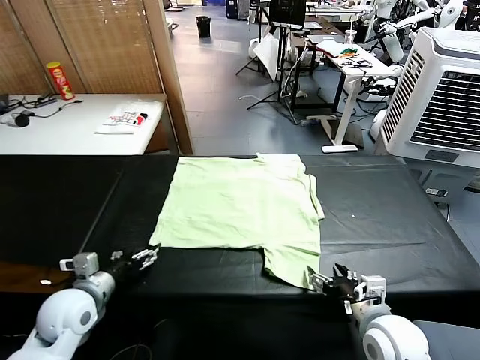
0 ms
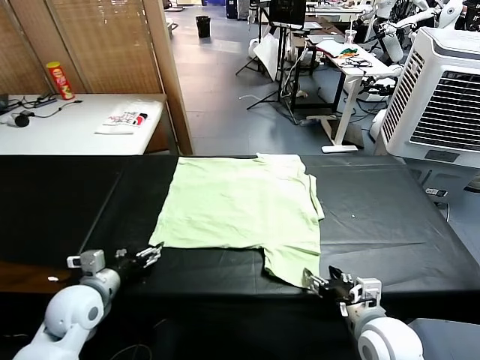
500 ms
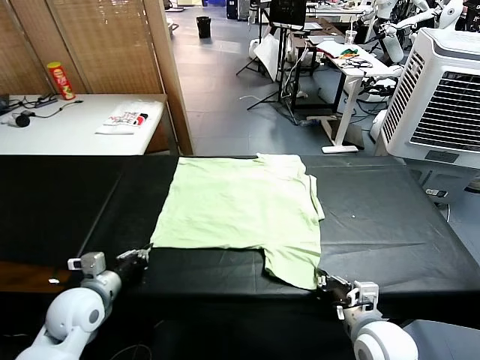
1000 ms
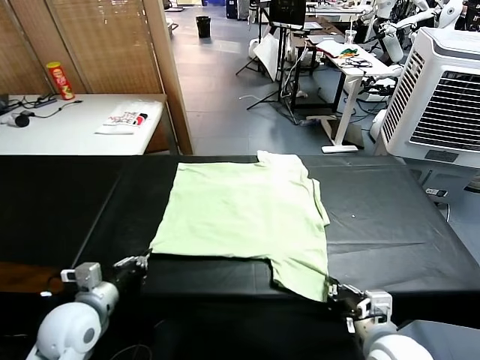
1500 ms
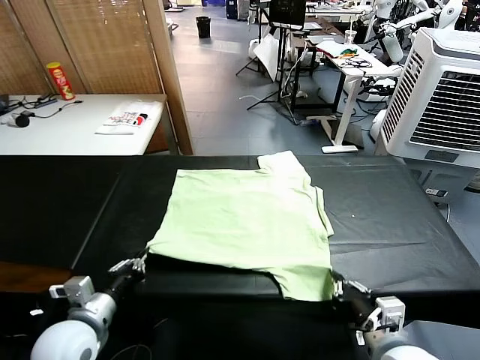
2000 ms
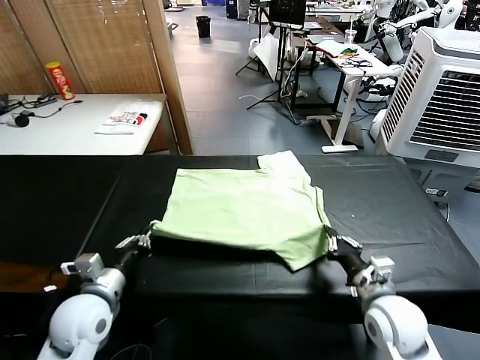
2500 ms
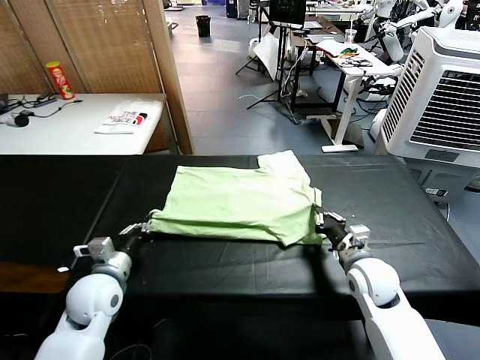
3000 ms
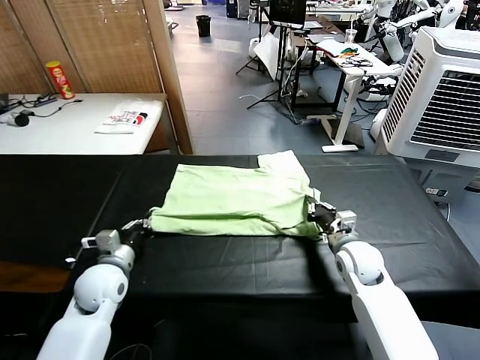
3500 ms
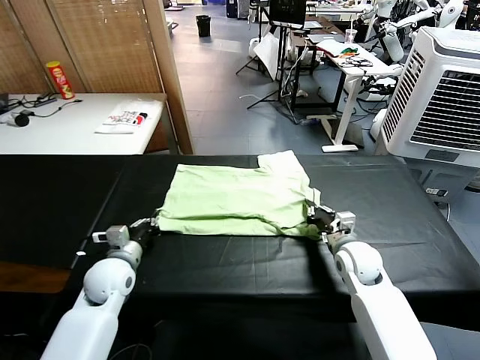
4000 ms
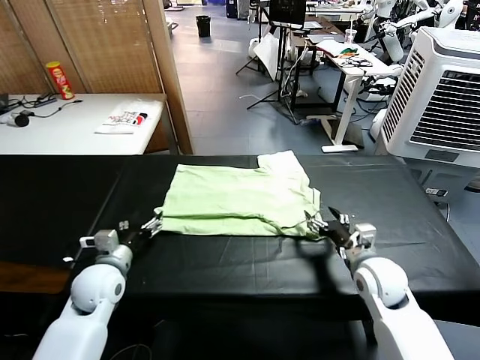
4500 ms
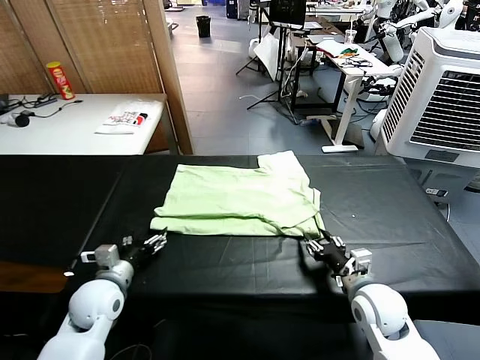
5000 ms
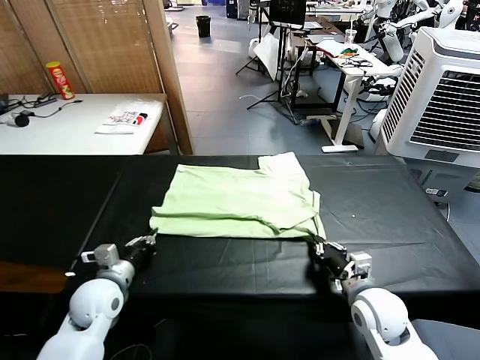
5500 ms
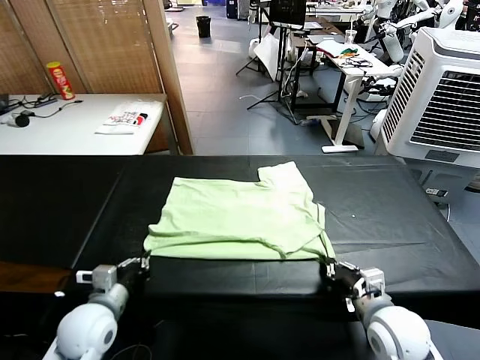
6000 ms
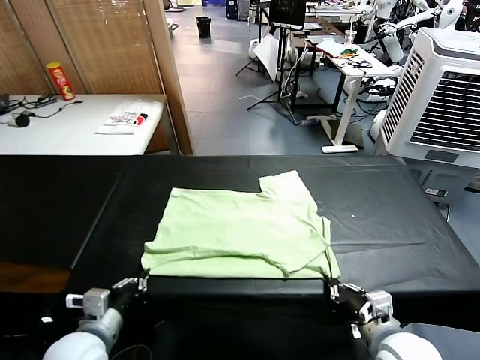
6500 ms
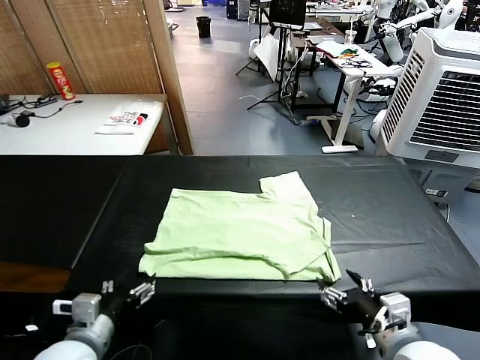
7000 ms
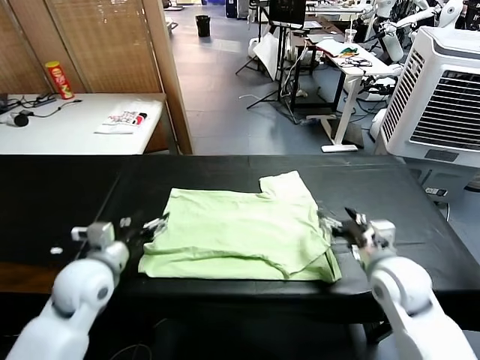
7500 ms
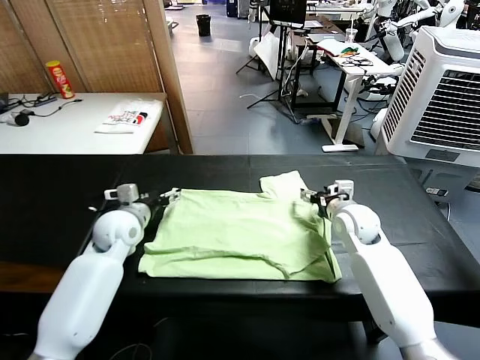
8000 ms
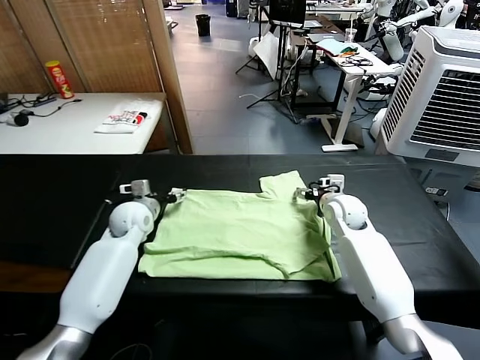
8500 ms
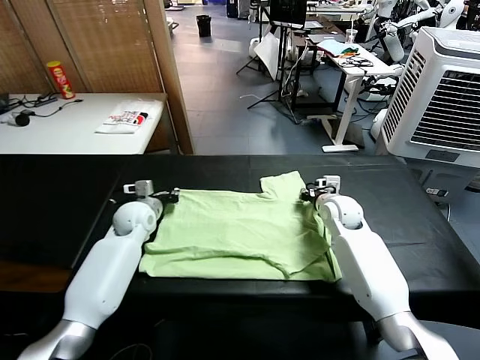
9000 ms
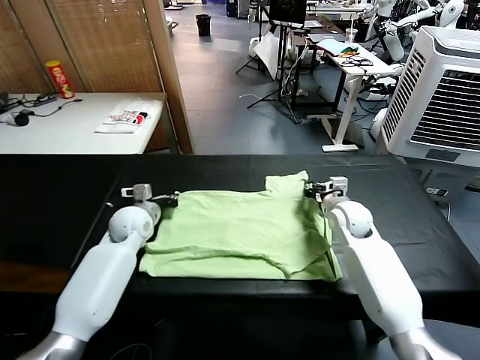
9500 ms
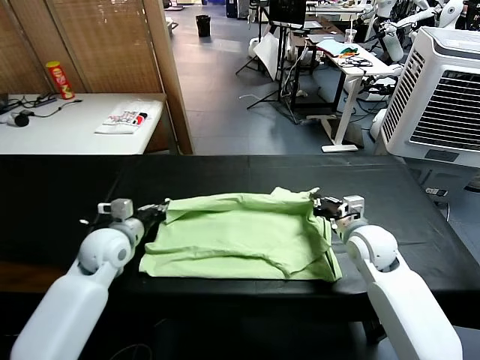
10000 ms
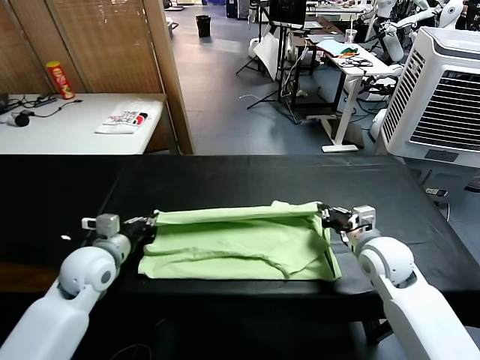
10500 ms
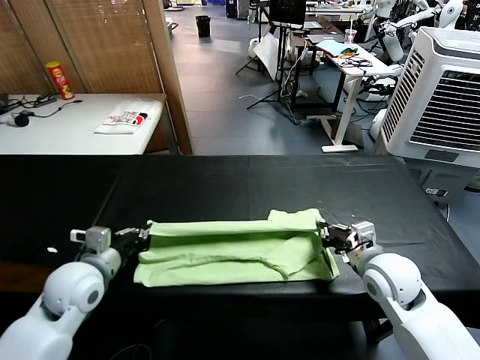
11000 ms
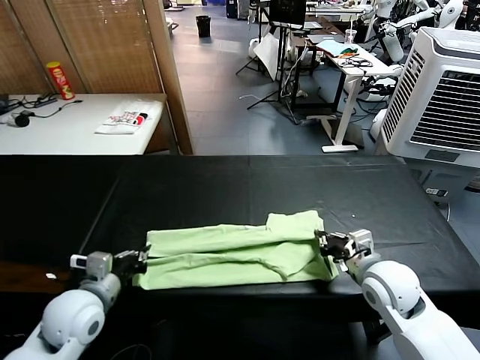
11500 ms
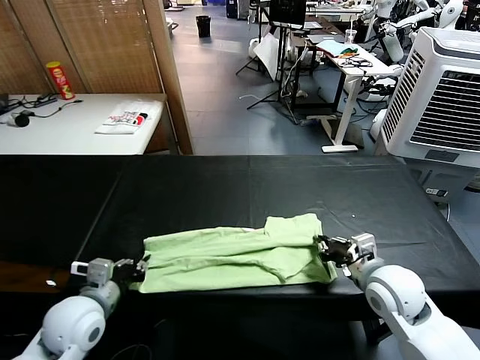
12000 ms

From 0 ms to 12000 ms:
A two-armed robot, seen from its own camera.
Task of the whole recording: fold and organize the clothes.
Step, from 0 ms to 1000 ms: use both grippers simultaneously to clamp the lower edge of the clothing fabric.
Step, from 1500 ms to 4000 ms: use both grippers to drag the lower edge of the fabric forward and fold it over the upper edge.
Step, from 4500 ms to 7000 ms: Drag the clothes downward with both gripper.
Step, from 7500 ms to 9000 ms: use both grippers simultaneously to clamp the upper edge of the clothing fabric.
From 2000 ms to 4000 ms: Both grippers travel together forward, roughly 15 cm. The right gripper opens up.
From 4000 ms to 6000 ms: The left gripper is displaced backward by approximately 10 cm, and opens and closes again, while the right gripper moves backward, about 15 cm, and closes its fingers.
From 6000 ms to 8000 ms: Both grippers travel together forward, roughly 25 cm. The right gripper opens, while the left gripper opens.
From 8000 ms to 10000 ms: The left gripper moves backward, some 5 cm, and closes up. Meanwhile the right gripper travels backward by approximately 10 cm, and closes up.
From 10000 ms to 12000 ms: The grippers both shift backward by roughly 10 cm. The right gripper opens. The left gripper opens up.

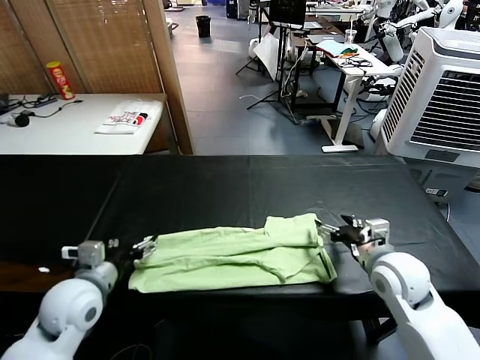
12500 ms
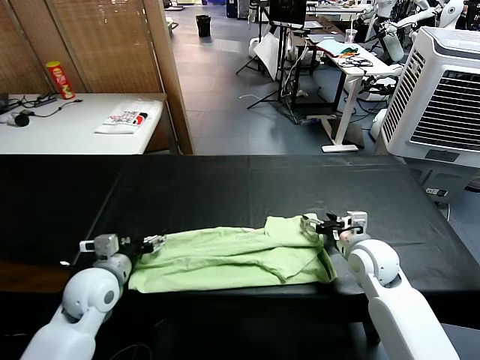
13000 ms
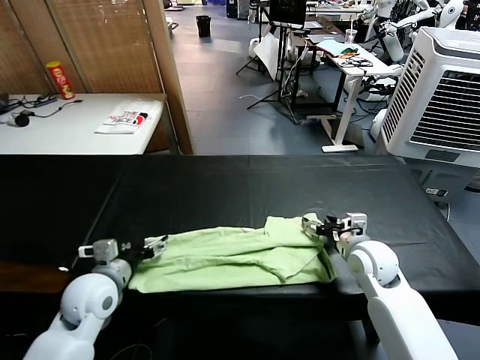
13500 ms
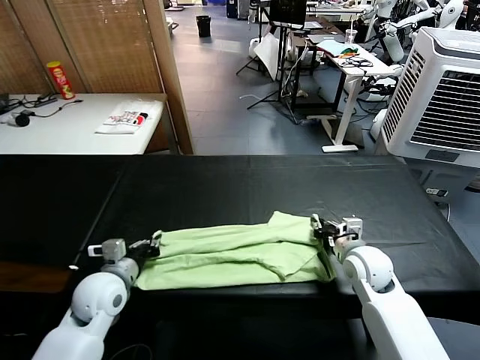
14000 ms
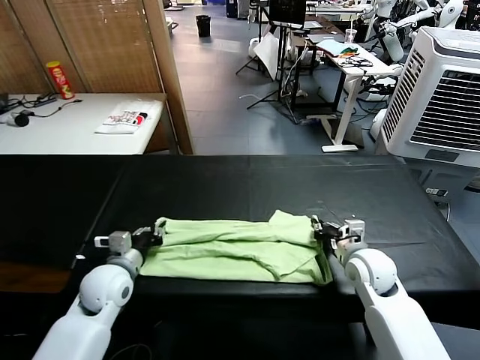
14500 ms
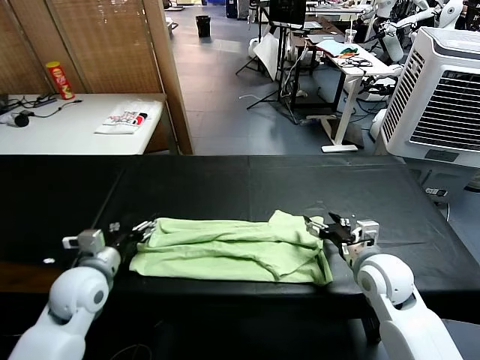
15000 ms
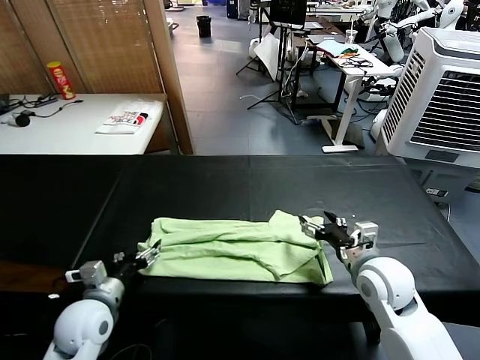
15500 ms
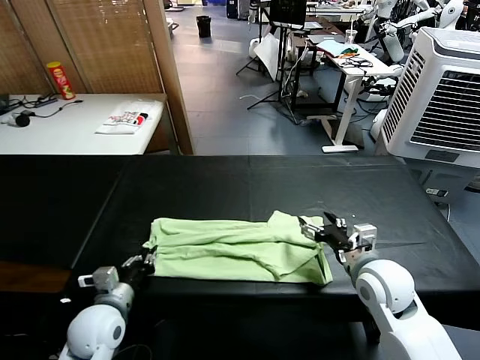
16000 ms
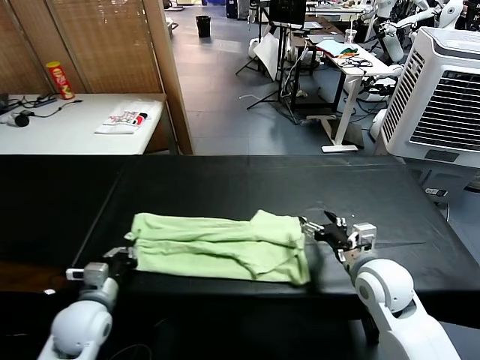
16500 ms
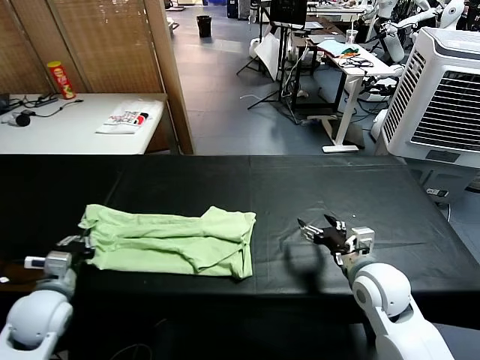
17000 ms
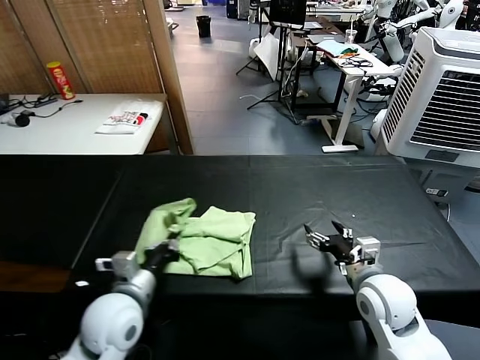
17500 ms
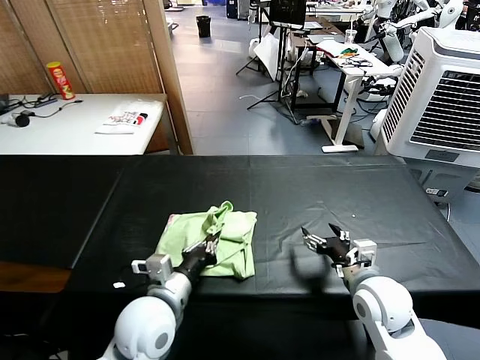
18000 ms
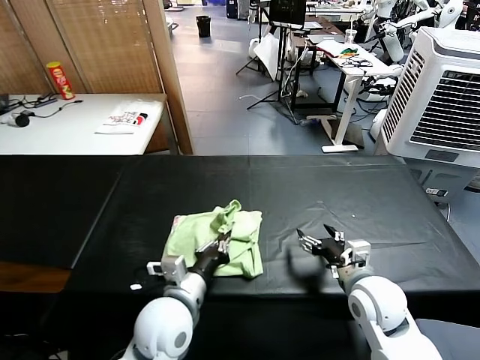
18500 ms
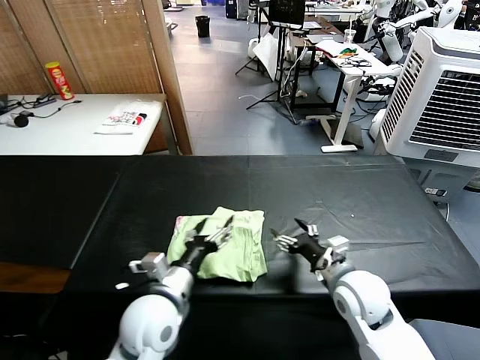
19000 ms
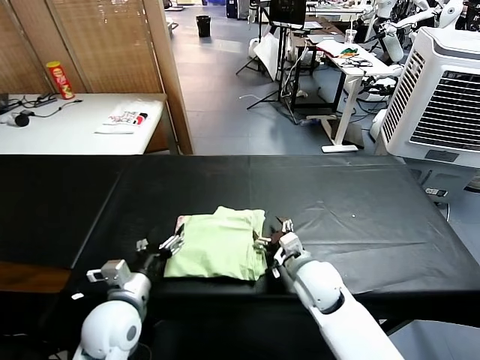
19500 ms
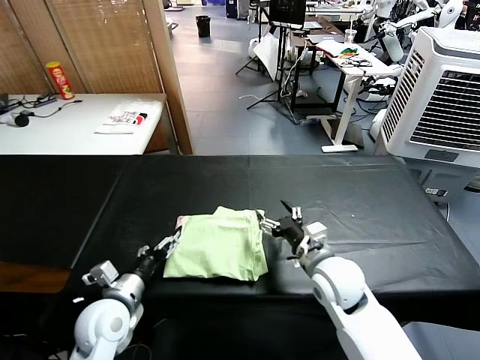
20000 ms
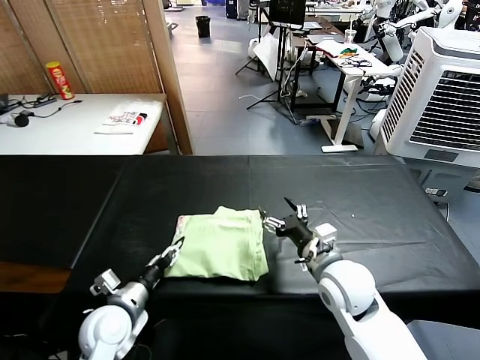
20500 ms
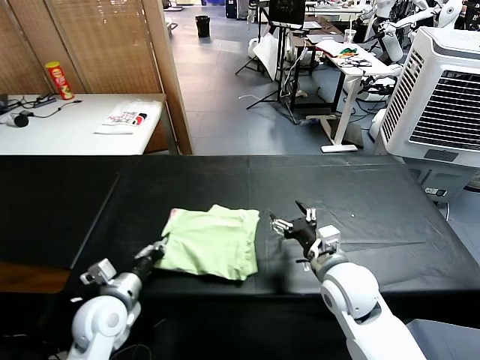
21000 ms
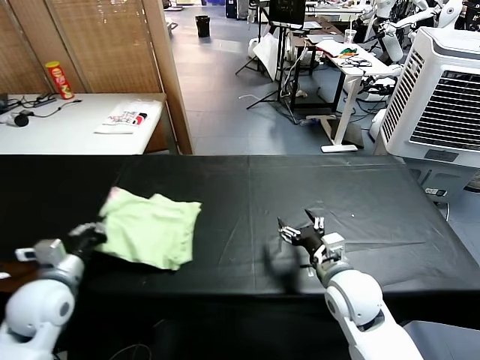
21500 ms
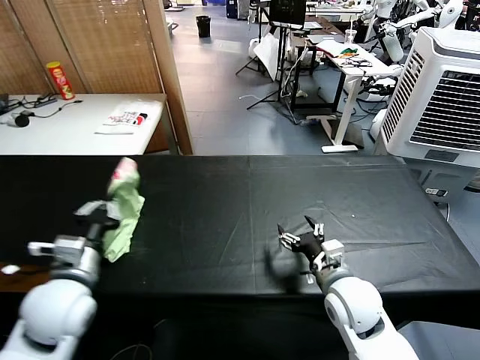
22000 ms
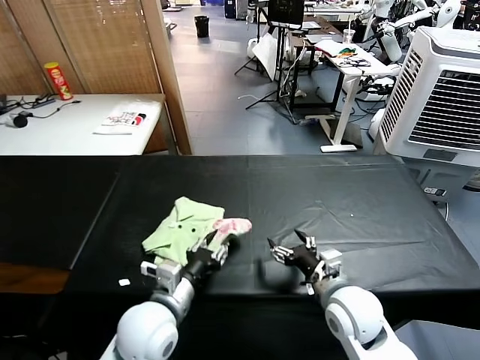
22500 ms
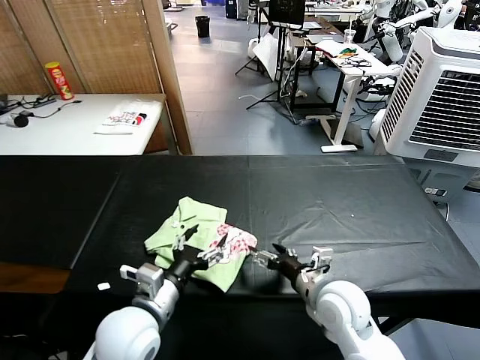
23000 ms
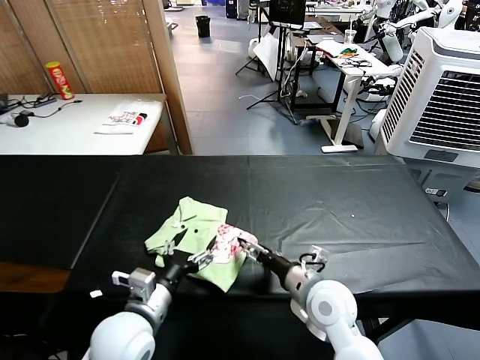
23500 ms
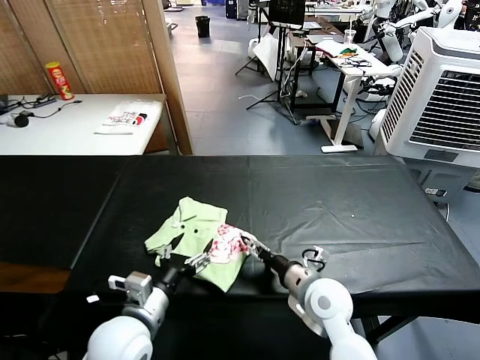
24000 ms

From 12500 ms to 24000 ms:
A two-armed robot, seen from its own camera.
Task of the whole recording: fold and organize the clothes.
Step, from 12500 ms to 16000 ms: use the left gripper to clamp the left edge of the fabric.
Step, from 16500 ms to 18500 ms: use the left gripper to drag the left edge of the fabric to the left and folds it over the right edge.
Step, from 19000 ms to 22500 ms: Flip the folded clothes over with left gripper.
From 12500 ms to 14500 ms: The left gripper is displaced downward by some 5 cm, and closes up. The right gripper closes its fingers.
From 14500 ms to 16500 ms: The right gripper shifts by roughly 5 cm, and opens its fingers; the left gripper travels backward by roughly 5 cm, and opens, then closes again.
From 16500 ms to 18500 ms: The left gripper goes some 20 cm to the right.
From 18500 ms to 20000 ms: The left gripper shifts about 15 cm to the left, and opens. Meanwhile the right gripper shifts about 5 cm to the left.
From 20000 ms to 22000 ms: The left gripper goes approximately 10 cm upward, and closes its fingers.
From 22000 ms to 24000 ms: The left gripper moves to the right and downward, approximately 10 cm, and opens; the right gripper shifts by approximately 5 cm.

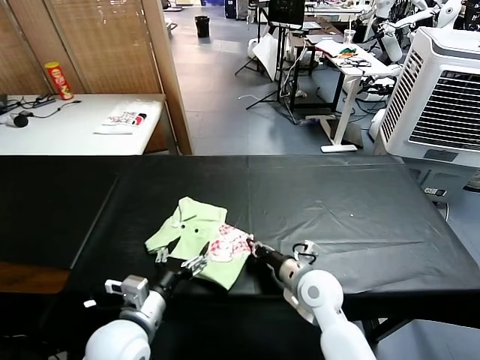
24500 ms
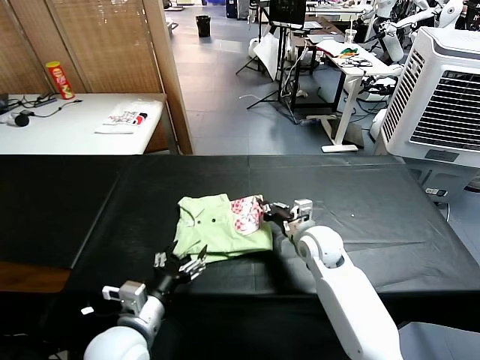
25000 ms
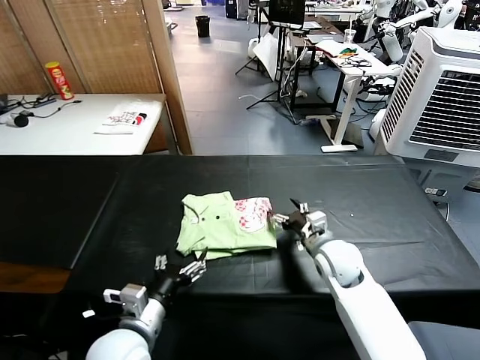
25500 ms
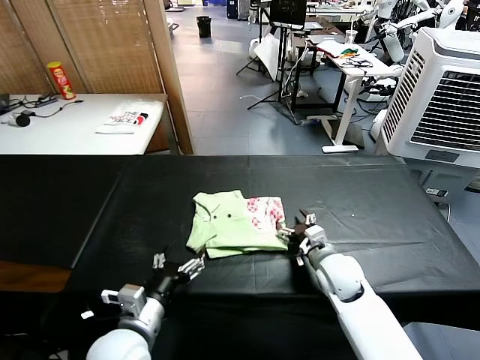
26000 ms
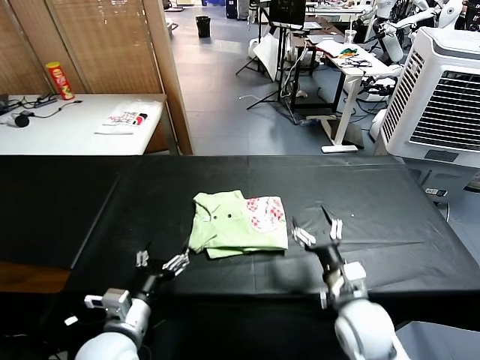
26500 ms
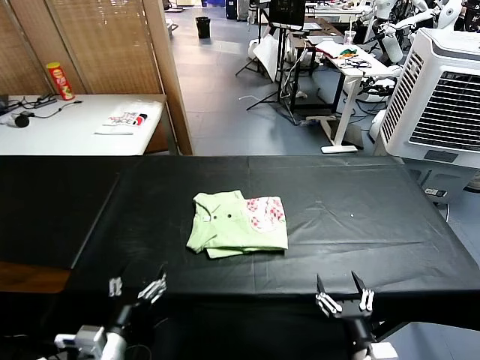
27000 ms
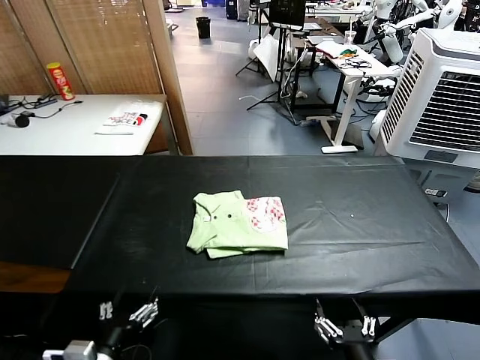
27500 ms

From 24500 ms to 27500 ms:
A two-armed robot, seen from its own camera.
Task of the whole recording: fold and organize the clothes.
From 24500 ms to 26000 ms: The right gripper opens.
From 26000 ms to 27500 ms: The left gripper moves backward and to the left, roughly 10 cm, while the right gripper is displaced backward by approximately 30 cm.
